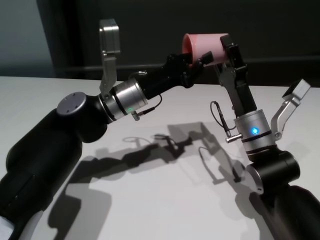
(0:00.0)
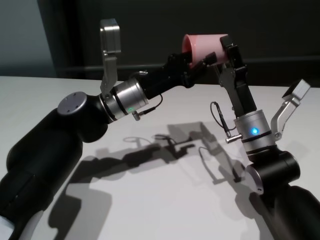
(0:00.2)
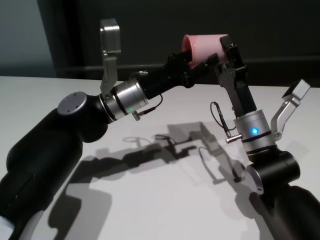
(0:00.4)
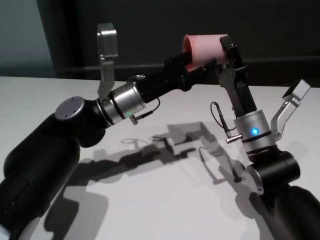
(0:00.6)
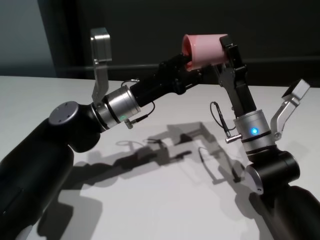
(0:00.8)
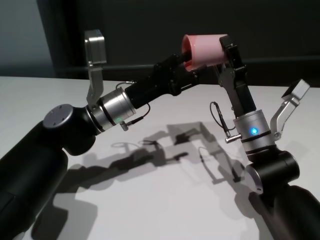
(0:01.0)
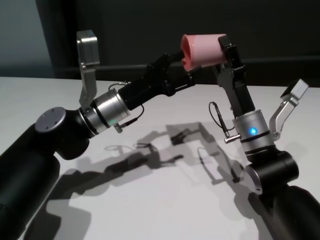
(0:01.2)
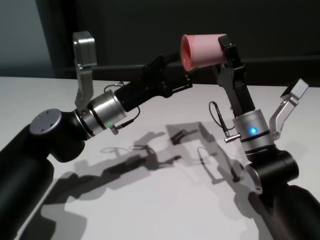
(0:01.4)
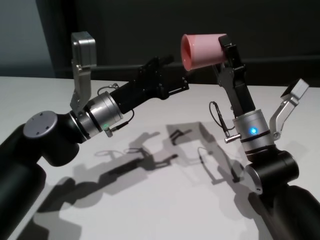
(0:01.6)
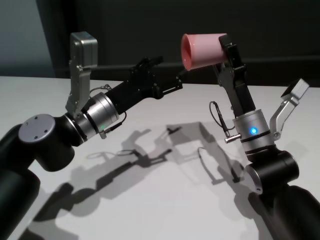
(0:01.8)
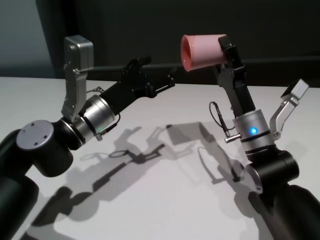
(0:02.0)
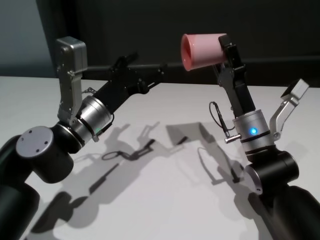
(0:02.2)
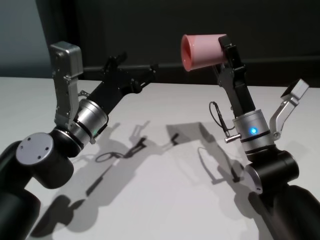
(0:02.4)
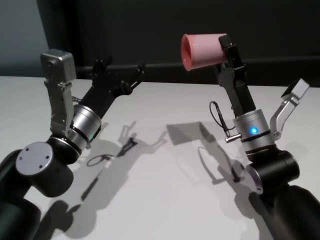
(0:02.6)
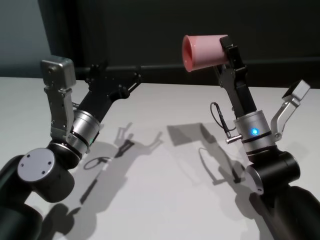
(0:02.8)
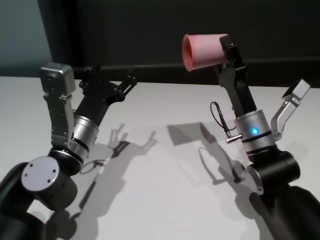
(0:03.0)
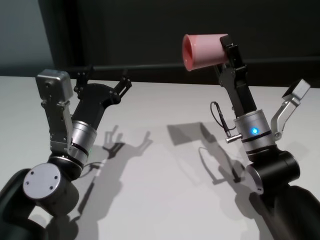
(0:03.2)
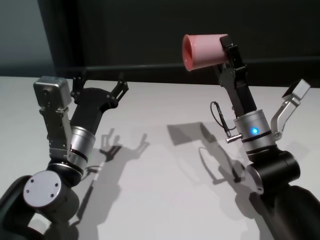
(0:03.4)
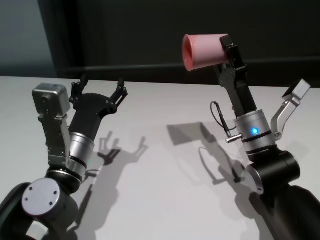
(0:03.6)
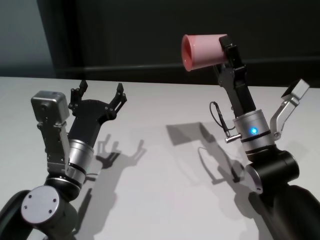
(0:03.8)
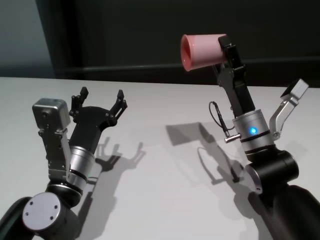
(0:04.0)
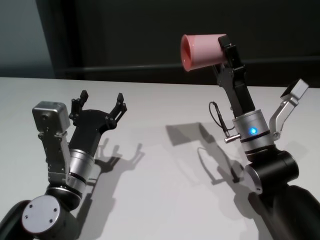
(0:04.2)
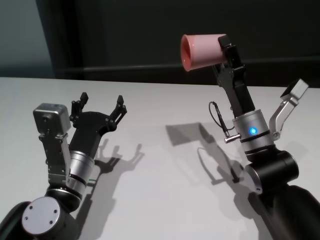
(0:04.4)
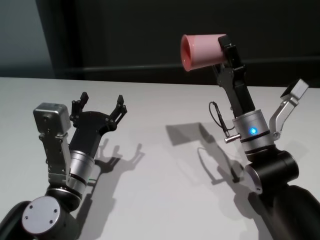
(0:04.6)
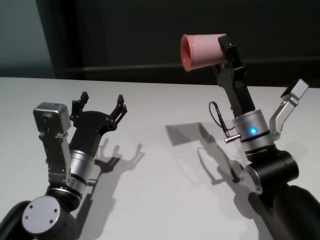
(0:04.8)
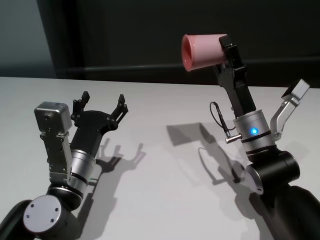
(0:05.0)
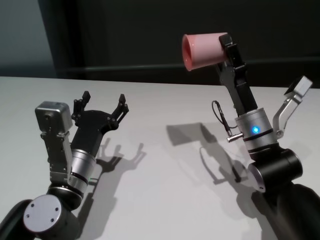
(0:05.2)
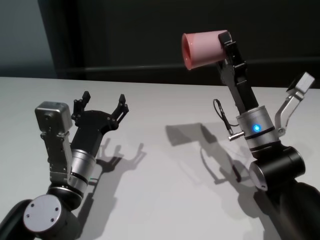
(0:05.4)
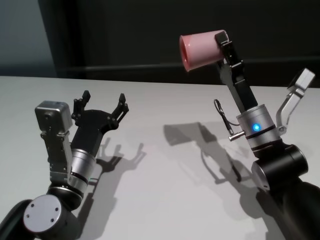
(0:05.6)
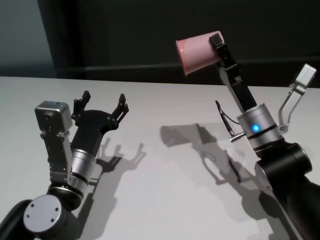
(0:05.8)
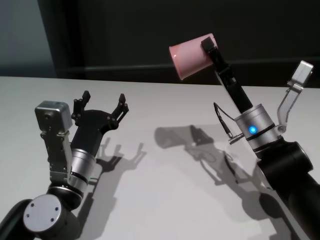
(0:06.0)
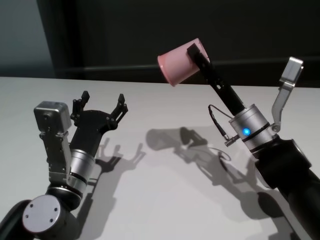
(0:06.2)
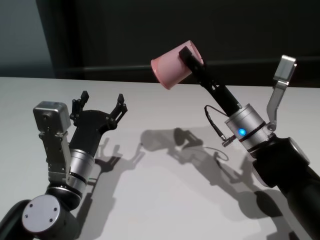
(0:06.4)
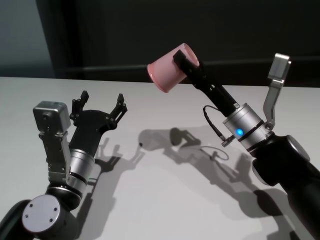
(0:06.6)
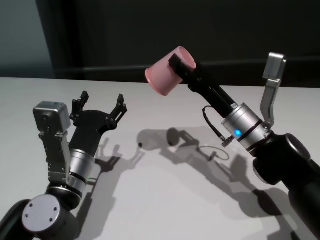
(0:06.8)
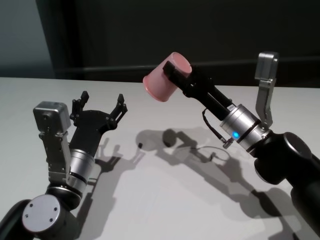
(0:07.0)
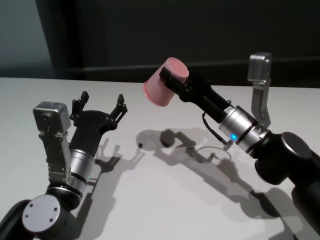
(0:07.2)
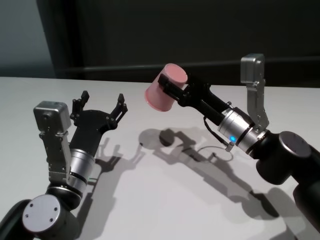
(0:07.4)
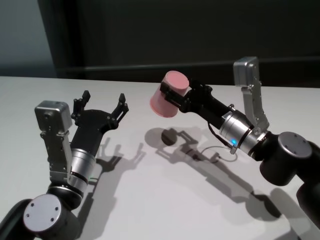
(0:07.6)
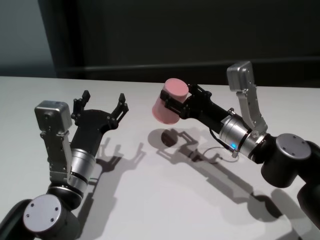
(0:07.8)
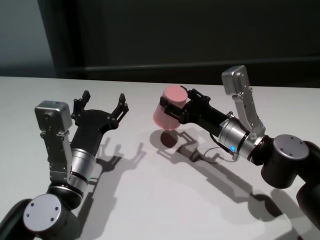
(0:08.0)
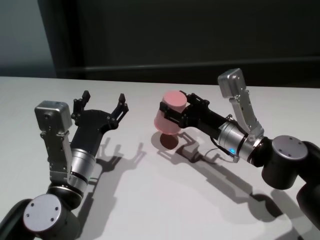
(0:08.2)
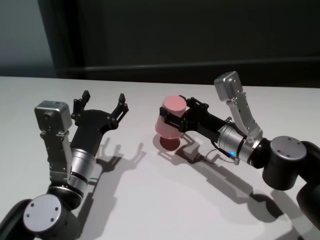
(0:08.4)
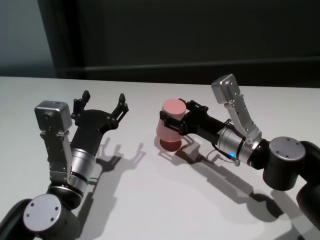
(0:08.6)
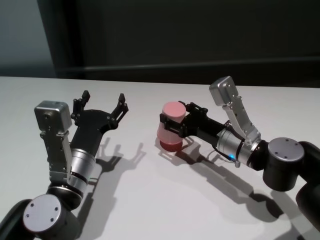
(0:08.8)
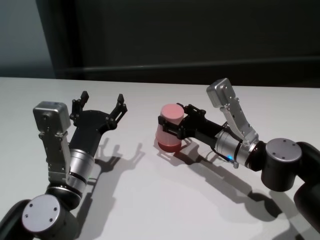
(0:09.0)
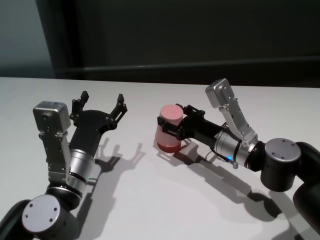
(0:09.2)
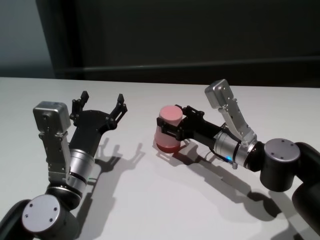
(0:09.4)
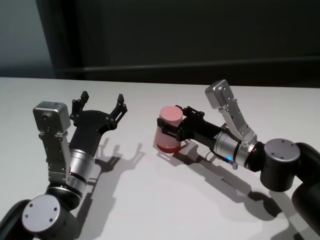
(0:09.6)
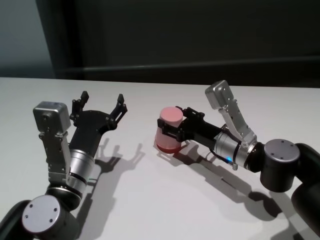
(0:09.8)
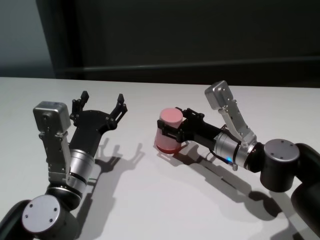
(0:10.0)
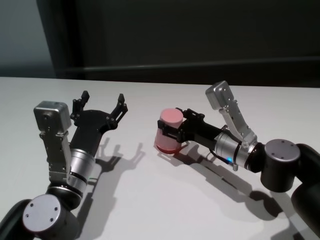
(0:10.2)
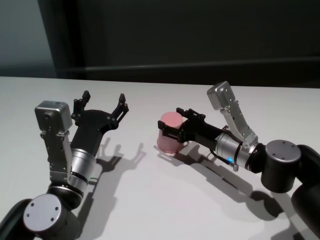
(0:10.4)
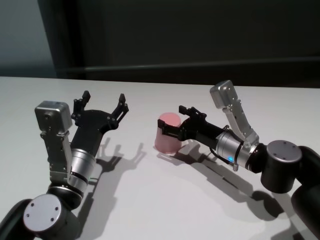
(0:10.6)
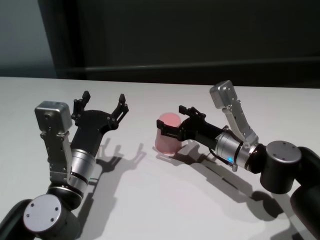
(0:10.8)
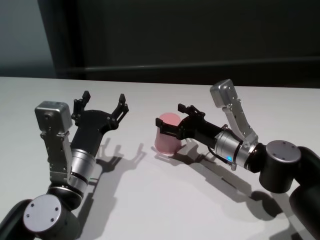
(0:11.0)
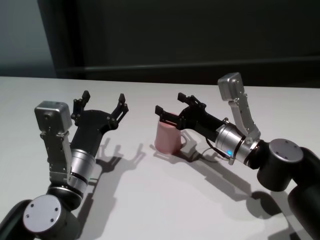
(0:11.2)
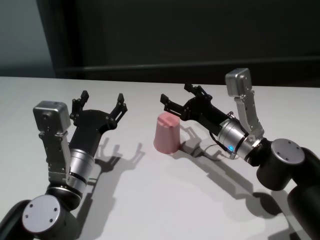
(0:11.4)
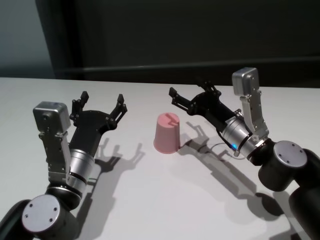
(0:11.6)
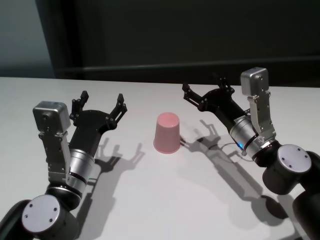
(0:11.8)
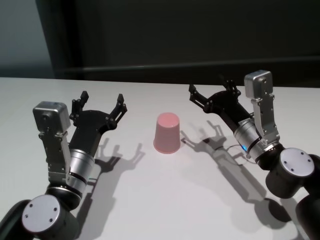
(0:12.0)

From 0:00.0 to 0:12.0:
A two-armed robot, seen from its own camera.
Task of the whole recording: On the white table pick up the cup with one hand and transfer it to the other hand before turning it over.
Step, from 0:01.6 to 0:10.6: Place the cup on the table with right gripper.
